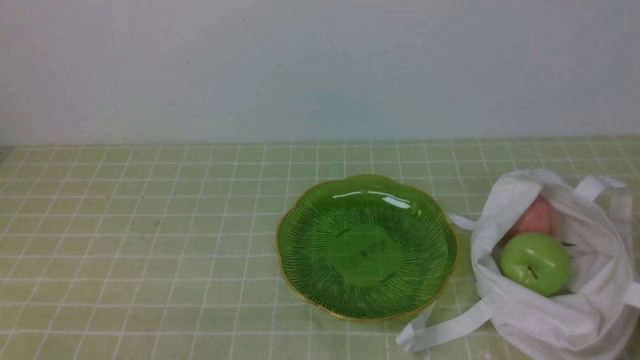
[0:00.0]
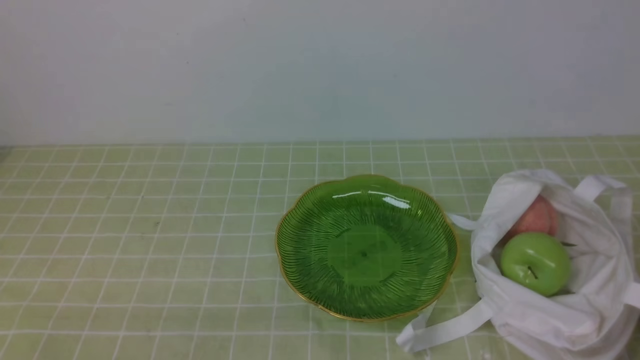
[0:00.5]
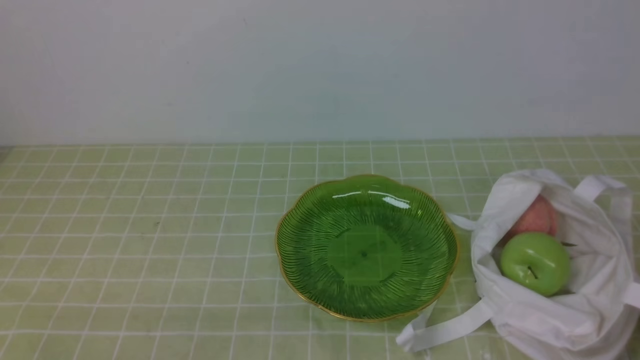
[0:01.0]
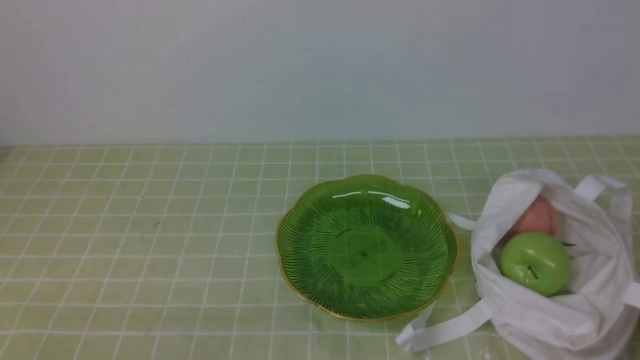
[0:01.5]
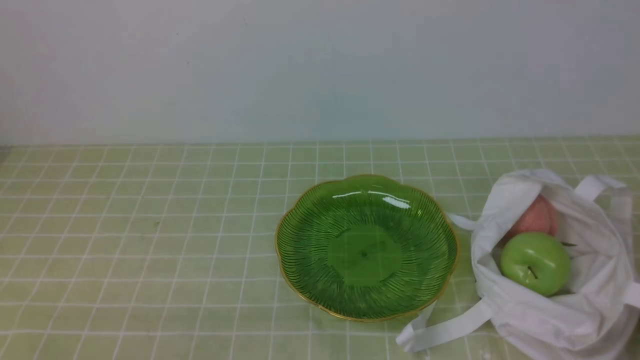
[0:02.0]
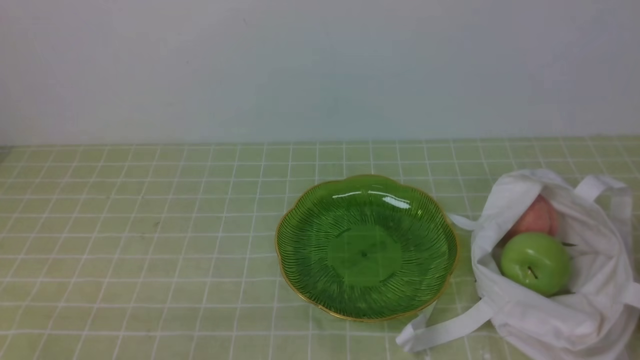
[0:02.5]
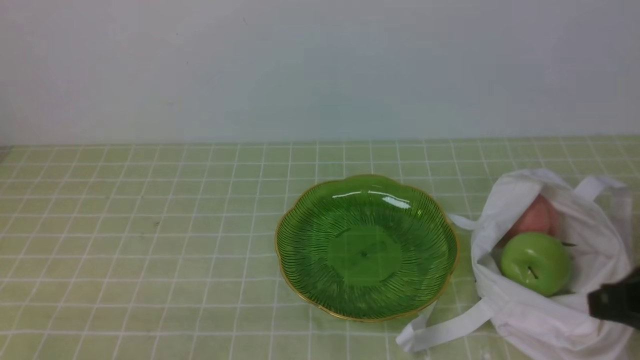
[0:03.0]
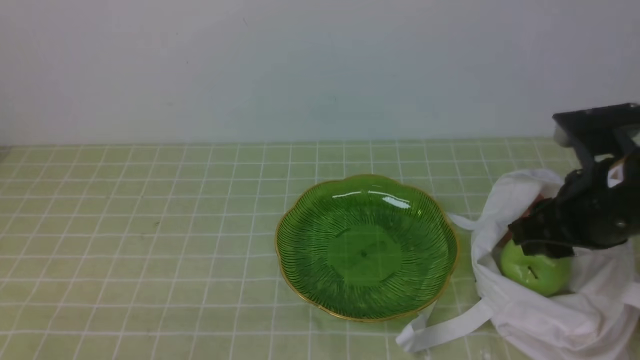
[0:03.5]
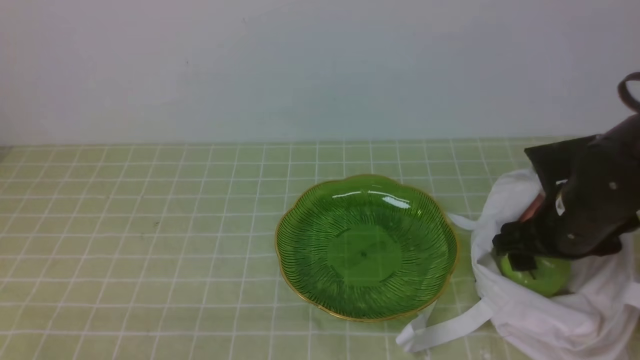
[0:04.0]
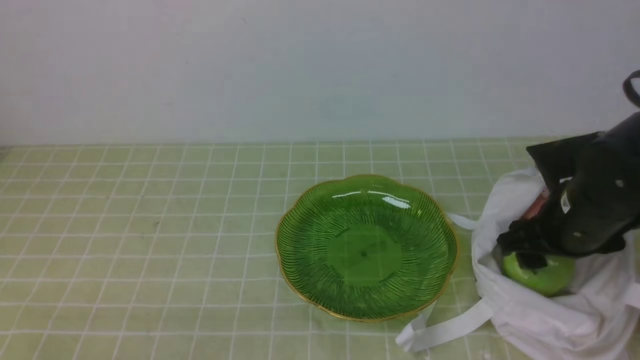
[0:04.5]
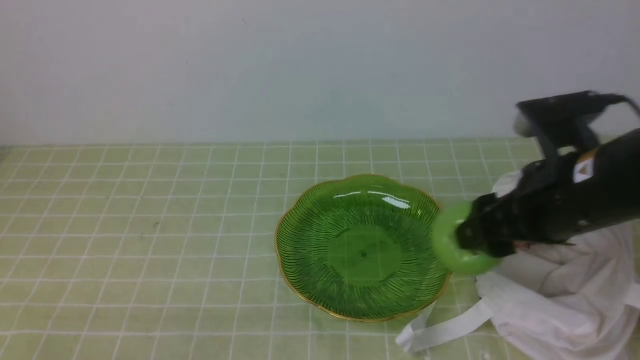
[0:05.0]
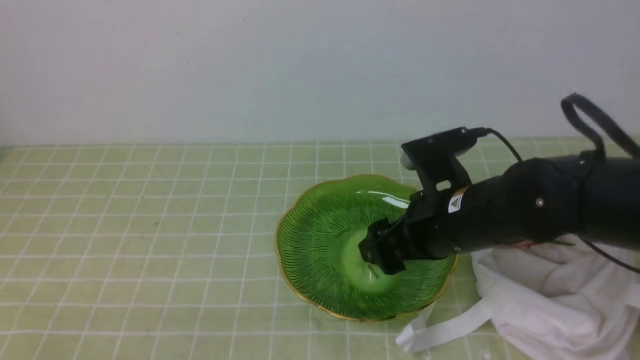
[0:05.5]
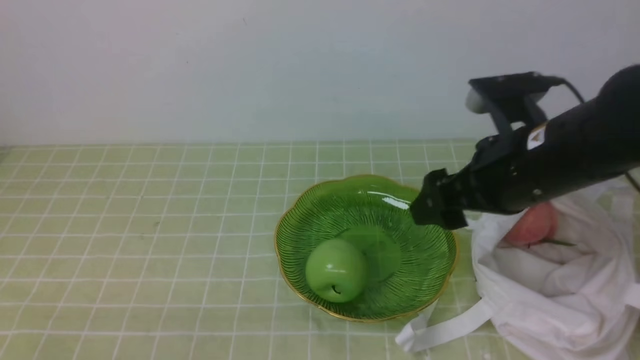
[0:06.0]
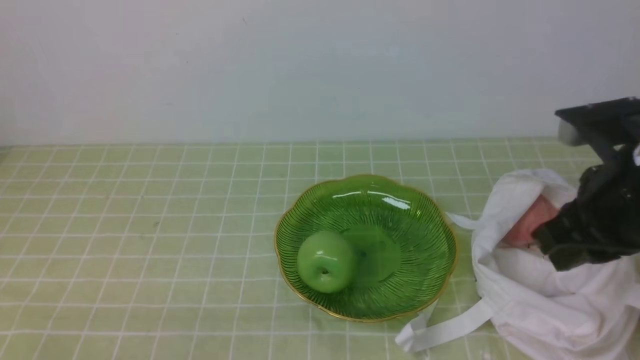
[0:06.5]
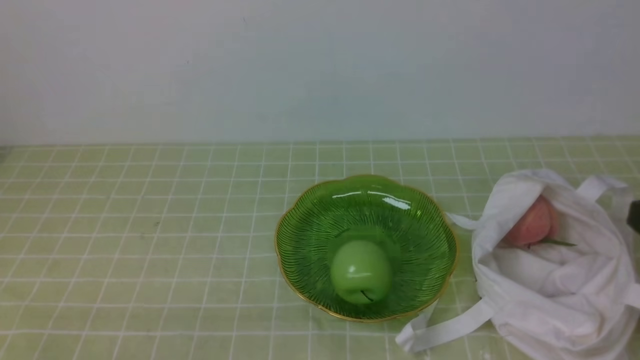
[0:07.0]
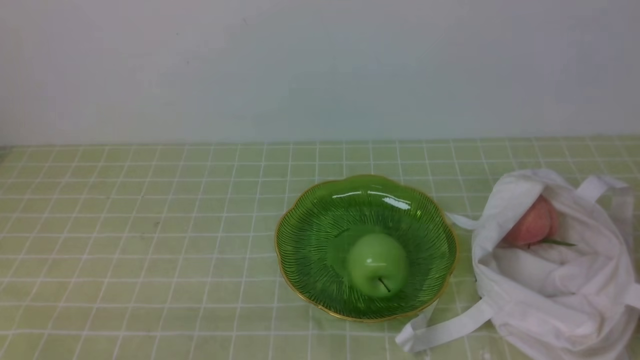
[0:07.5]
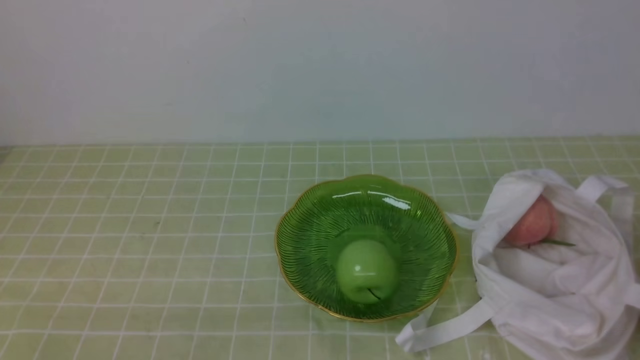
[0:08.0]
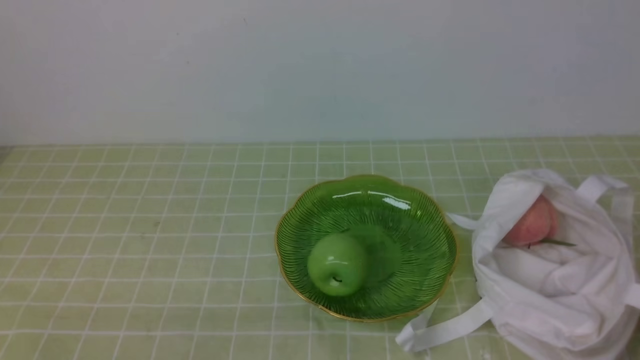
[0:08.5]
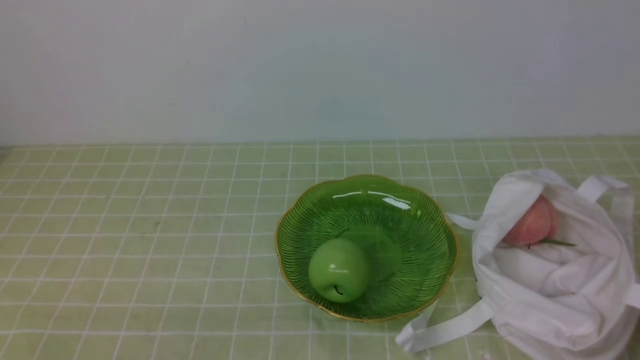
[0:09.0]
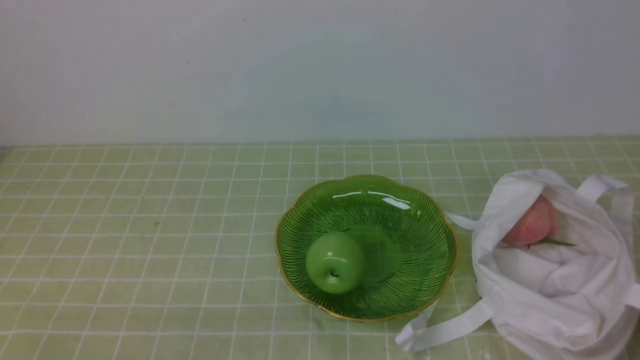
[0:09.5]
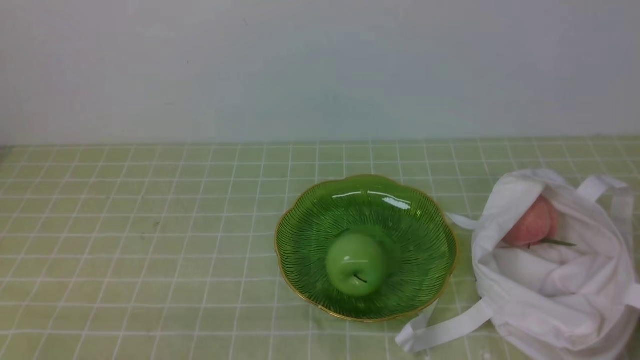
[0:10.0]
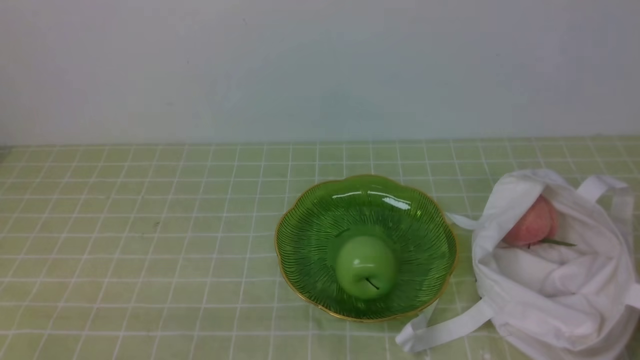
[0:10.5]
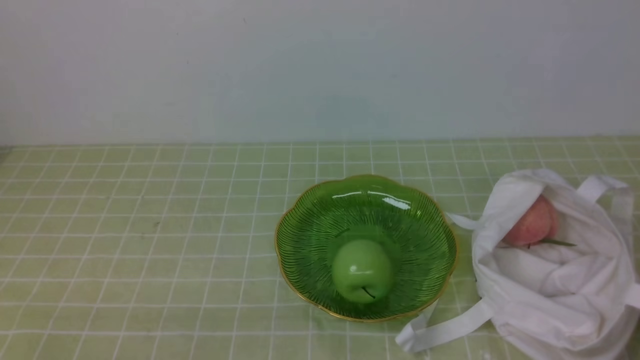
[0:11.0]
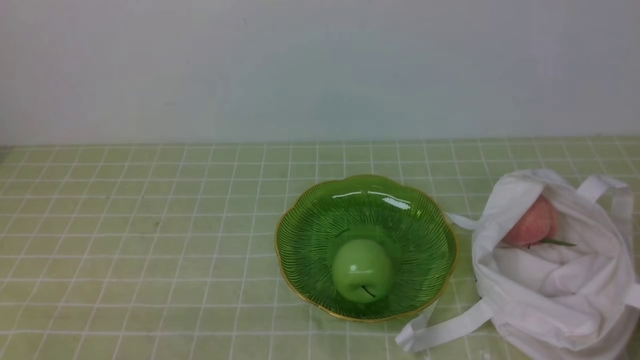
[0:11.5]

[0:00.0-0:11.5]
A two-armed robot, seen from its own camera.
Step, 0:00.0 to 0:04.5: use the right arm to grab an apple from the bag.
Step, 0:05.0 to 0:05.5: use the right arm to put the apple into the empty plate on the left.
0:02.0 to 0:04.0: The right gripper heads forward, covering approximately 25 cm, and opens up.
0:04.0 to 0:06.0: The right gripper goes about 10 cm to the left and upward.
0:06.0 to 0:07.5: The right gripper is displaced backward and to the right by about 20 cm, and closes its fingers.
0:07.5 to 0:09.5: The right gripper heads downward, covering approximately 10 cm.
0:09.5 to 0:11.5: The two grippers keep their place.
